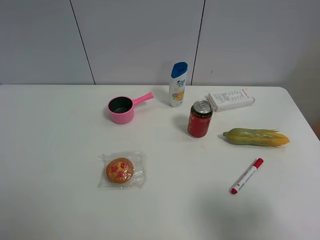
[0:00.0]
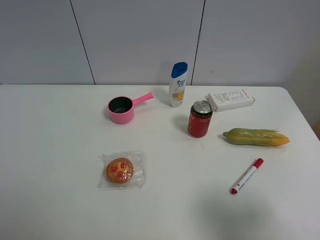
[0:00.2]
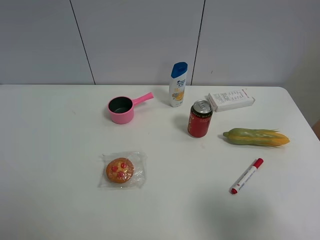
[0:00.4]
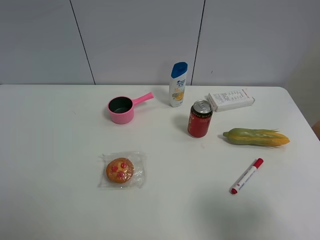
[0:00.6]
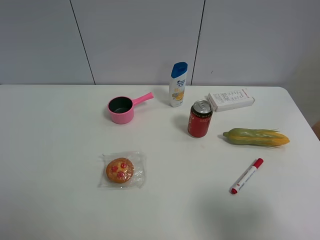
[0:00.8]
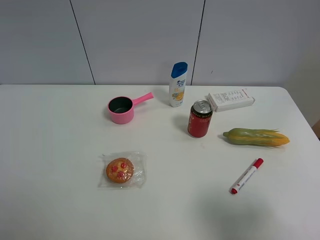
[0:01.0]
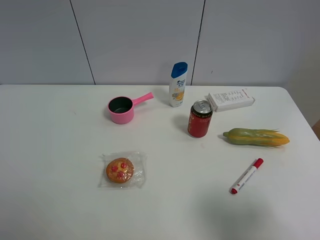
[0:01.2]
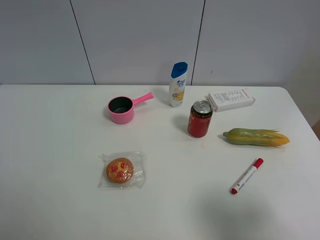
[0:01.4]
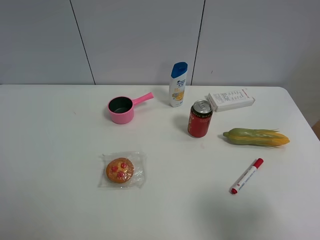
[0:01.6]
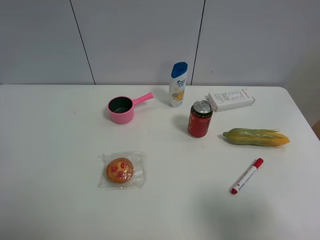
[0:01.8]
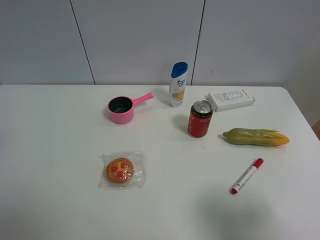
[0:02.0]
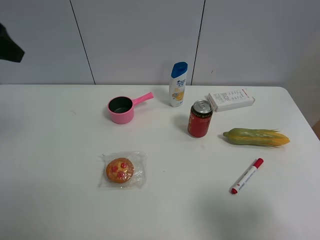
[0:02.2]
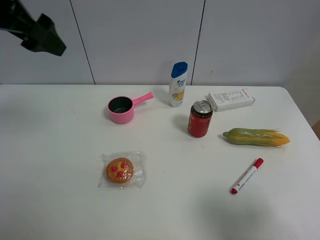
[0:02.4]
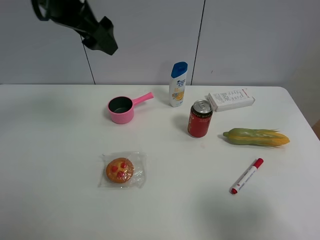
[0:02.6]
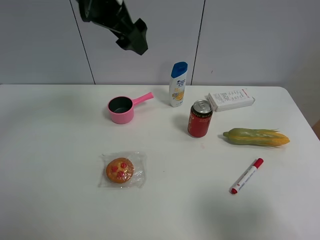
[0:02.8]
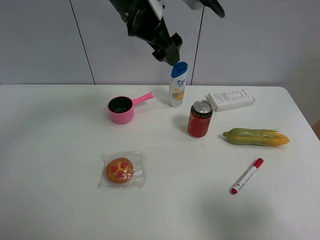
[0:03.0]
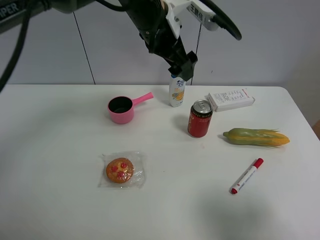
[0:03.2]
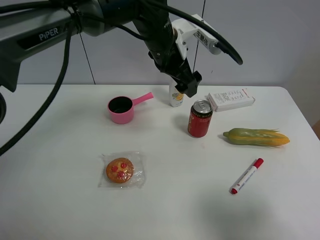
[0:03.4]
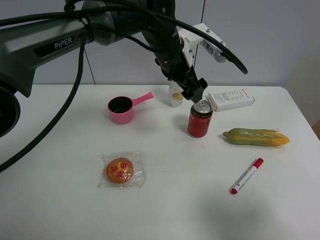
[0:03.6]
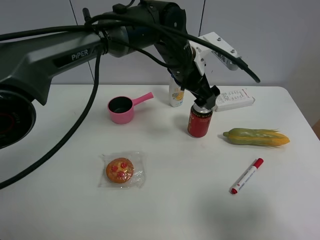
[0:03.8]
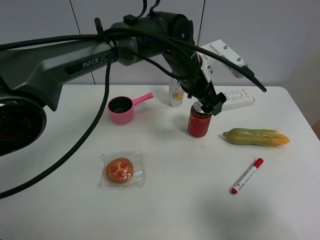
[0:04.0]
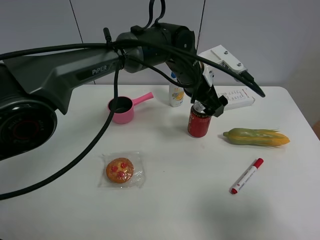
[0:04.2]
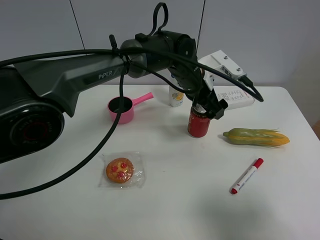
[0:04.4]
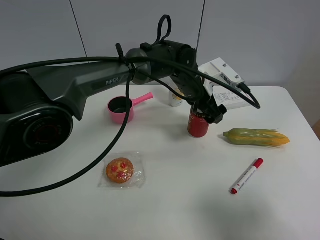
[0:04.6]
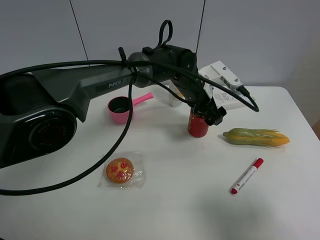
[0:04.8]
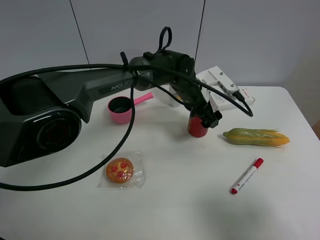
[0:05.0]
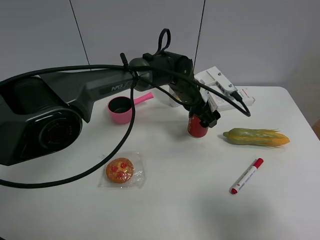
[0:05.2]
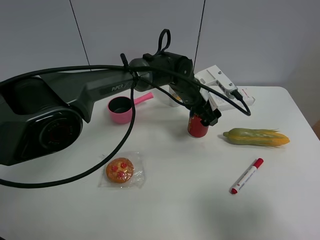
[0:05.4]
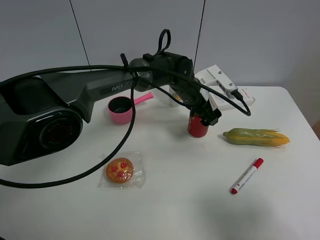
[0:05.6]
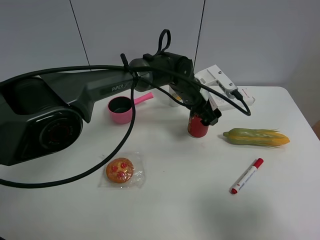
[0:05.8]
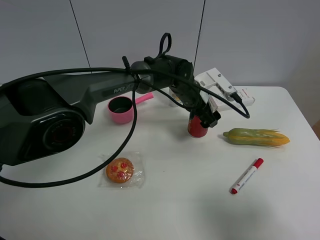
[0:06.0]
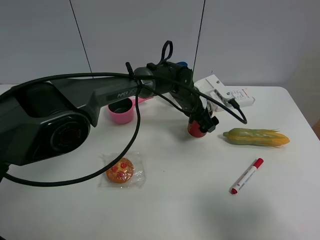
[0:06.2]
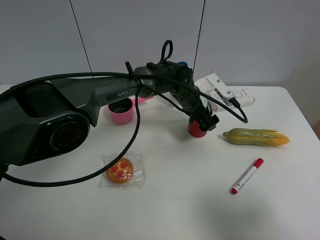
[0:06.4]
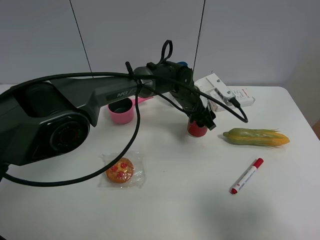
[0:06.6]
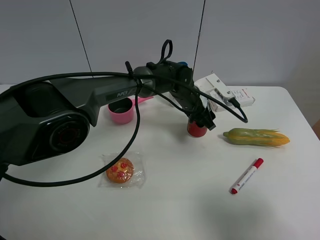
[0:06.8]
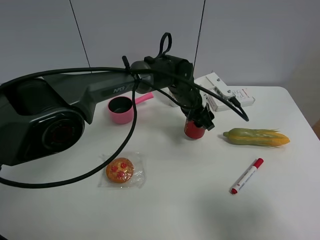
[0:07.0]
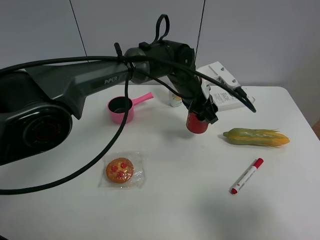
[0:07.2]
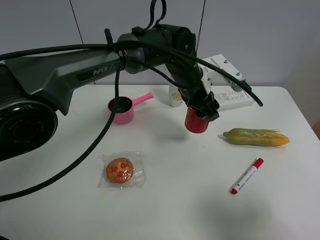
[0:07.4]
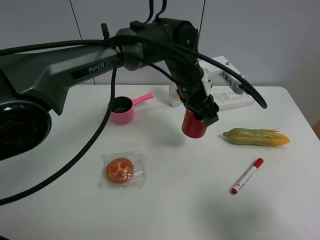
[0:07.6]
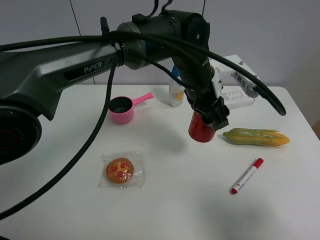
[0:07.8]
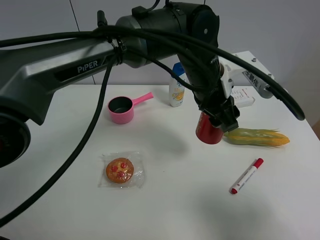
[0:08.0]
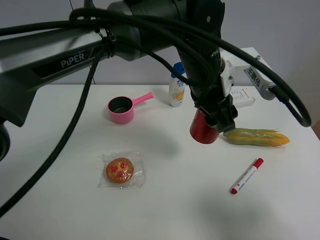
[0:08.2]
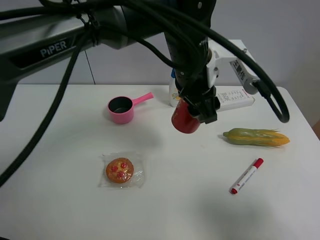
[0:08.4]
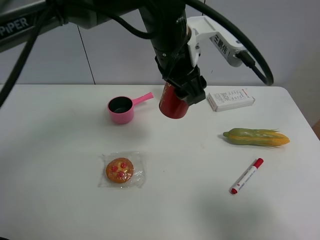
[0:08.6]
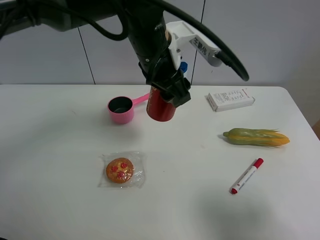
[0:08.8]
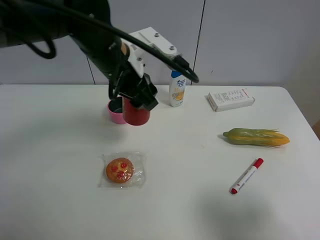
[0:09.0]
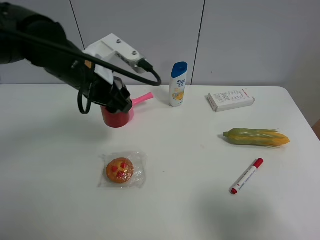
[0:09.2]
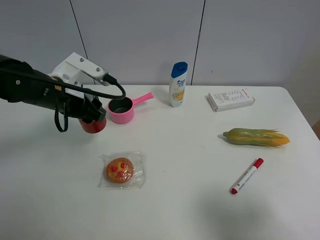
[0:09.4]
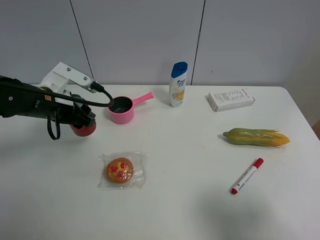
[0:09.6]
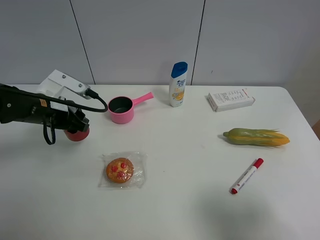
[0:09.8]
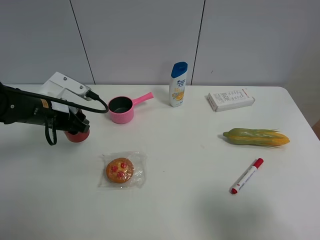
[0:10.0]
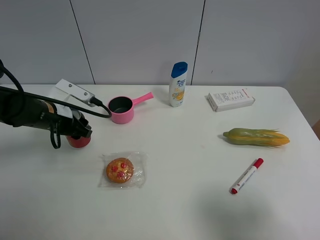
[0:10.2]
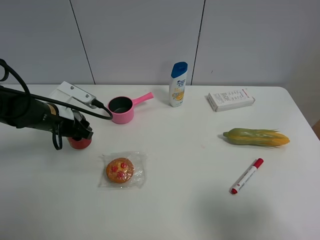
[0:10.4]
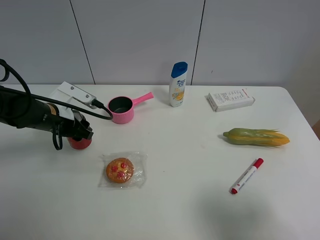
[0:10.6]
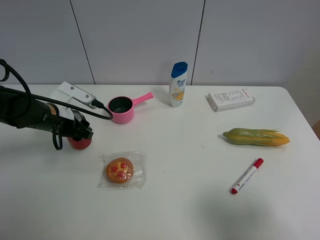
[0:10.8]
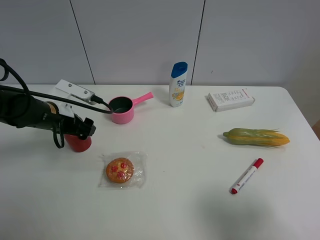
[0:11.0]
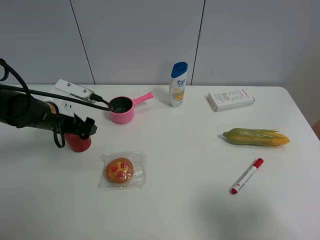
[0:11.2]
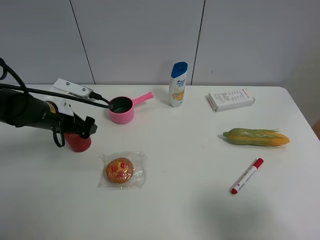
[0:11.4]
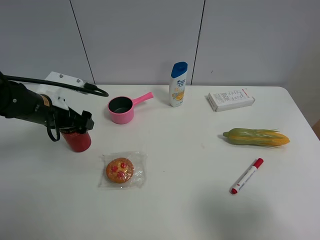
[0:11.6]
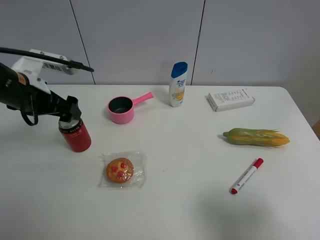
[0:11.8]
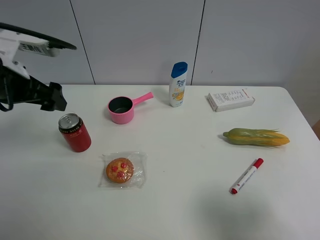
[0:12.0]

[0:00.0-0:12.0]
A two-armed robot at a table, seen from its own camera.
Task of the whole recording: the gripper move the object.
Step, 0.0 to 6.6 s: Grasp the Jia Duo Bao with the left gripper.
Step, 6.8 to 11.8 s: Place the Jia Duo Bao on the table with the left gripper.
1.6 to 3.0 s: The left gripper goes approximately 40 cm to the right and forward.
3.0 to 4.4 s: The left gripper travels downward and to the right by approximately 20 cm.
4.4 to 6.0 s: The left gripper is displaced downward by approximately 5 cm.
6.0 to 7.6 s: The left gripper is displaced upward and backward by some 10 cm, and closes up.
7.6 to 9.0 s: The left gripper moves to the left, roughly 15 cm.
9.0 to 10.4 s: The left gripper heads to the left and downward, covering some 20 cm.
10.4 to 12.0 s: The left gripper travels upward by some 15 cm, and opens.

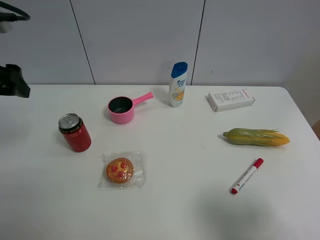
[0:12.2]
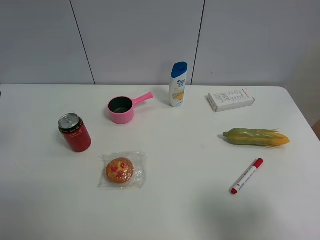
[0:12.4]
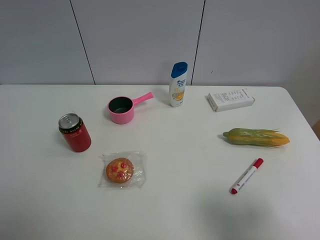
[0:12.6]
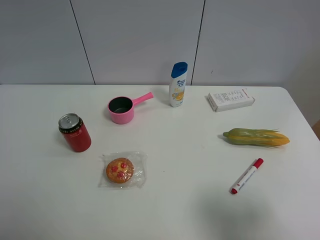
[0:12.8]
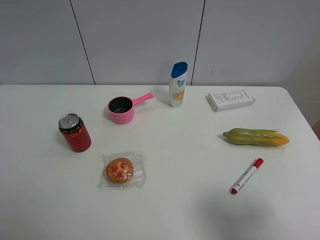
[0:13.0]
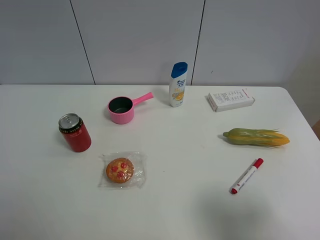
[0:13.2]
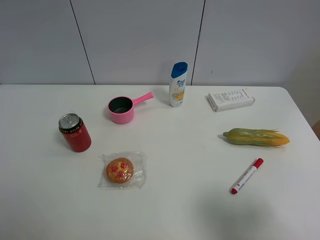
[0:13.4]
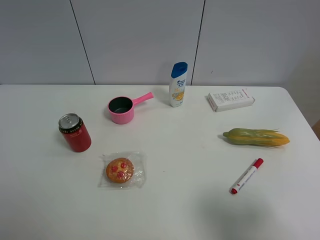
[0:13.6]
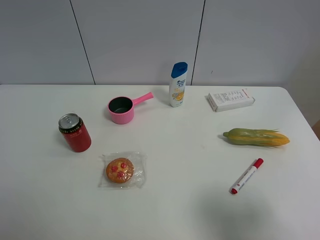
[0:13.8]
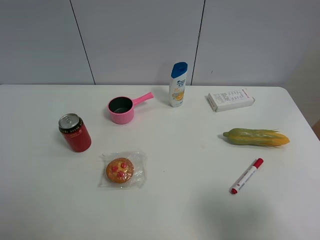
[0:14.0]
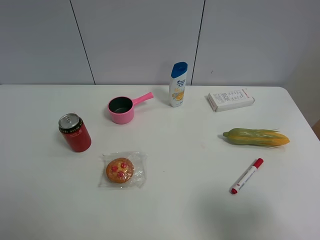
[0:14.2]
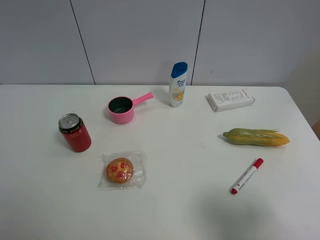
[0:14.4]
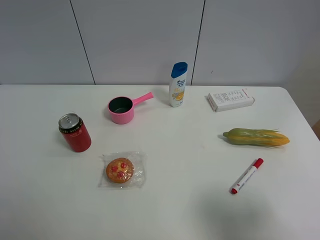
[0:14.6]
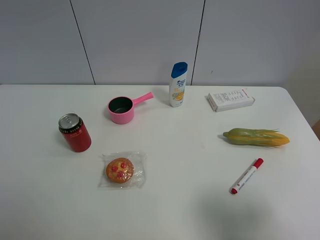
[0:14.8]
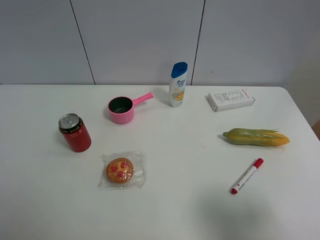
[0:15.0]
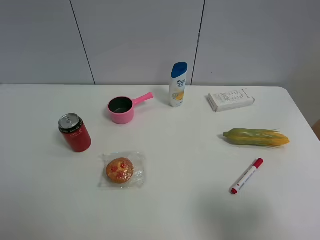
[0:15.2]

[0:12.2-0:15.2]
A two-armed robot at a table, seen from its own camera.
Task of the whole recording: the gripper move the object.
12.2 to 13.8 s: The left gripper goes some 25 cm backward.
13.8 to 15.2 s: The two grippers keep their place.

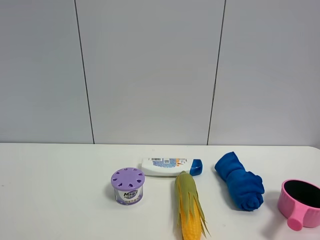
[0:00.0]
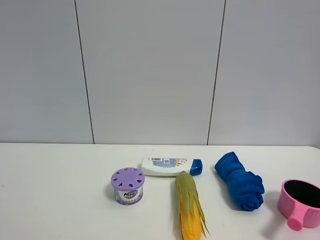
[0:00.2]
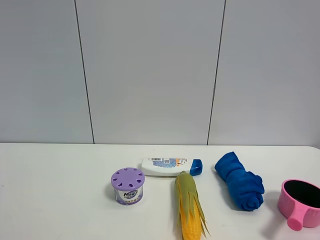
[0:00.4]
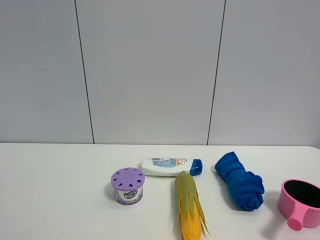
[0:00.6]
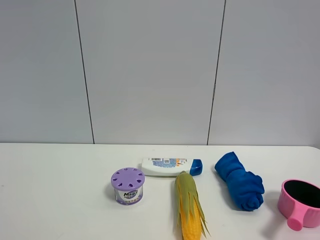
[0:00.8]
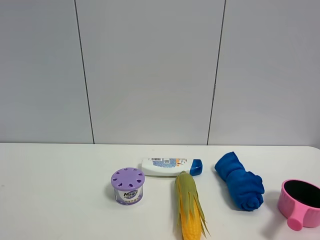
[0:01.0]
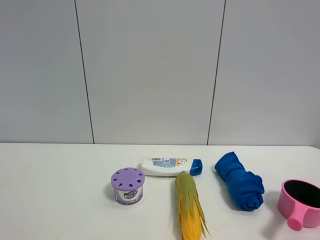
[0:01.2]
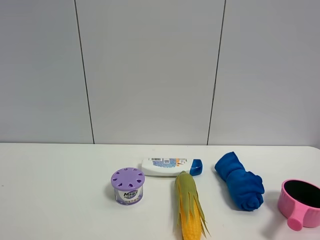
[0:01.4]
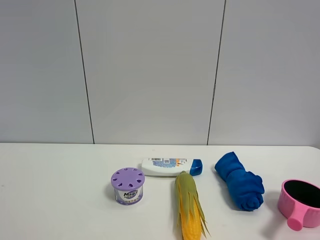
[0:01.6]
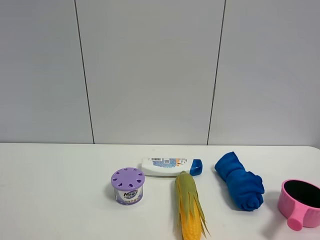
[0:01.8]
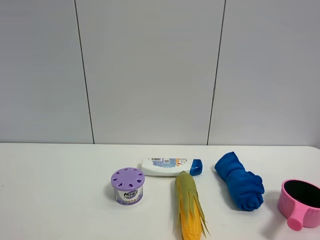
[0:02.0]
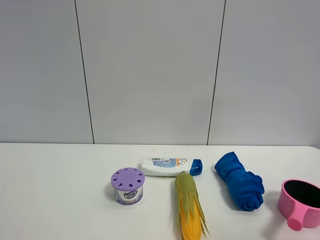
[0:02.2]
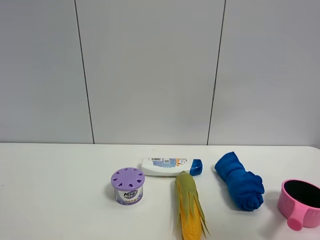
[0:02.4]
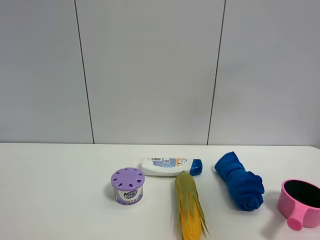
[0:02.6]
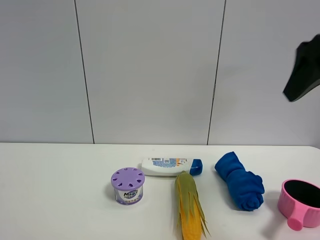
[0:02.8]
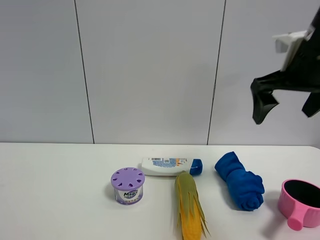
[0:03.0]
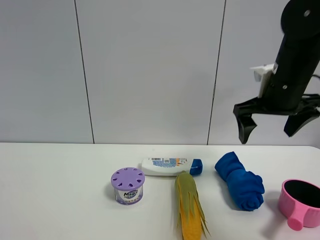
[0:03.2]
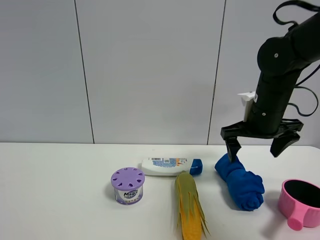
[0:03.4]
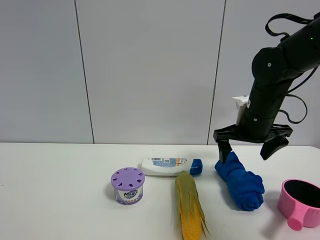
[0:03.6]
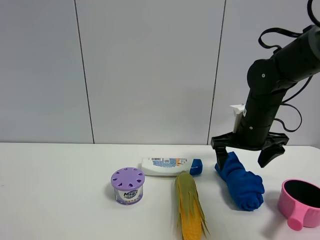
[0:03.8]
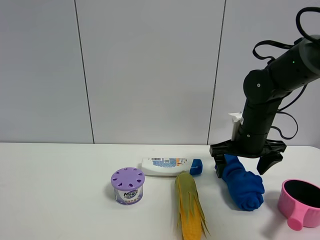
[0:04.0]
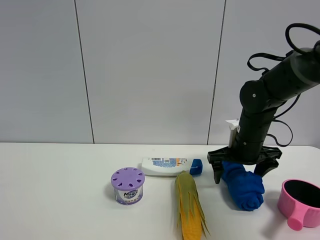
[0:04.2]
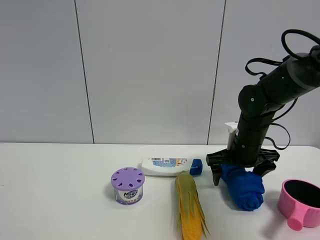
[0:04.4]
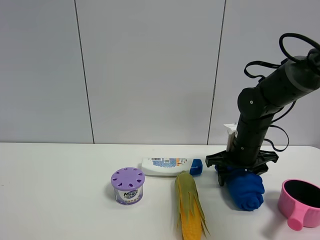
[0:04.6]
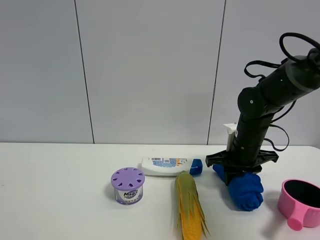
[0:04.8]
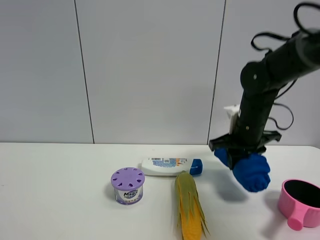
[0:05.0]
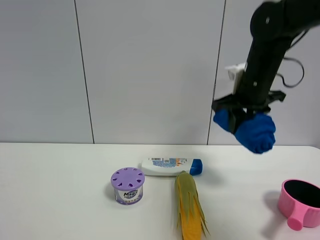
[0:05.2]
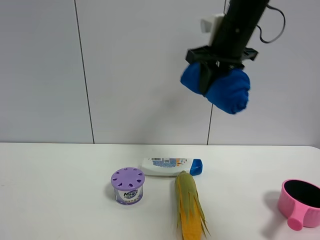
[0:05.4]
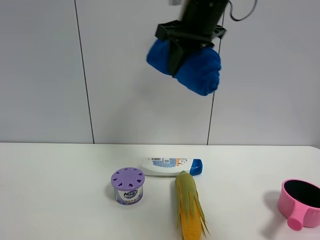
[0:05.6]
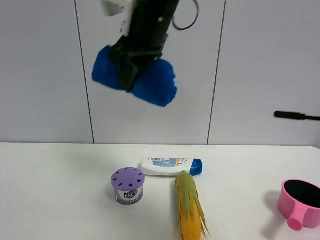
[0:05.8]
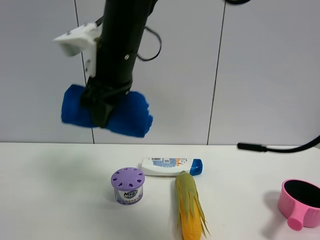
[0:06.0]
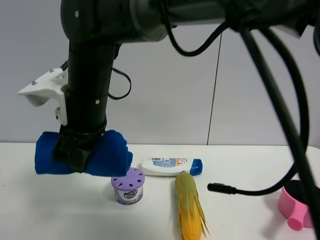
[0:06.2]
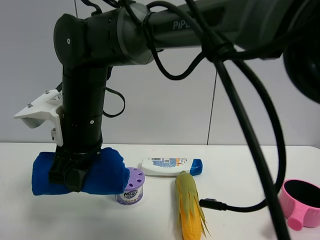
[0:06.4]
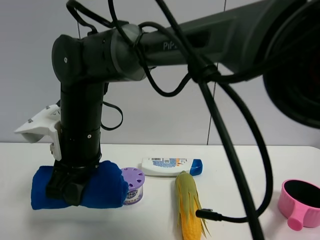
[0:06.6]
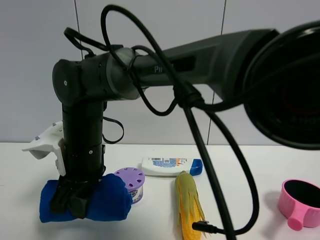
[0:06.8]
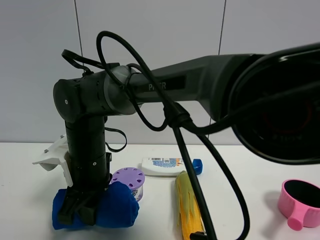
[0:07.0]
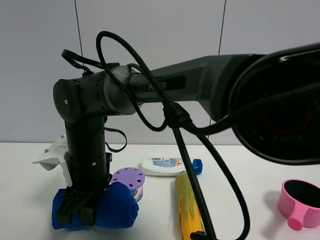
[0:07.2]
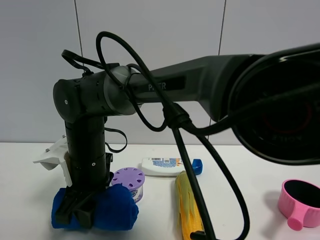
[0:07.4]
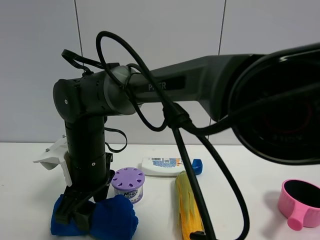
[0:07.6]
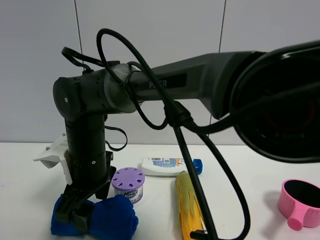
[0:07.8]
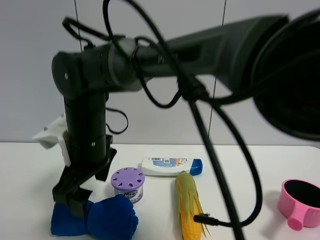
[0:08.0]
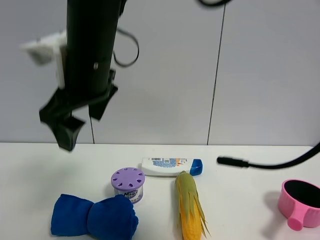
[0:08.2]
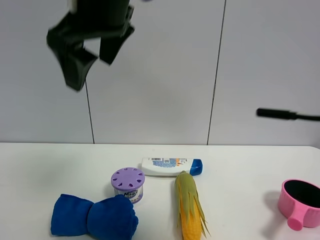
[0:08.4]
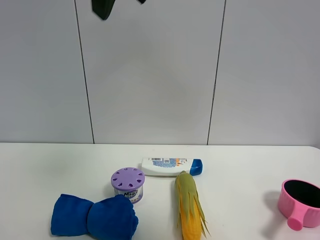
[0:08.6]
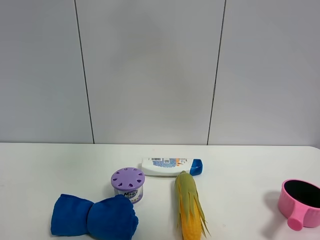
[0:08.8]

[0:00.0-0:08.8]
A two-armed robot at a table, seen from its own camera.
Task of the whole recording: the gripper move the object.
Step, 0.0 to 4.8 s: Grasp the blue towel with the right gripper.
Step, 5.0 to 8.0 s: Place the blue towel on the table with the right gripper.
0.0 to 1.4 s: Both grippers stay about where they are.
1.4 to 3.0 s: The right gripper heads forward, covering roughly 30 cm.
3.0 to 4.4 s: The right gripper shifts some 20 cm downward and forward.
4.4 to 5.8 s: The right gripper is displaced to the left and upward by approximately 30 cm, and closes its fingers.
5.8 to 7.4 s: The right gripper moves downward and to the left, about 20 cm.
7.4 to 8.8 s: The right gripper travels upward and to the right by approximately 40 cm, and opens.
